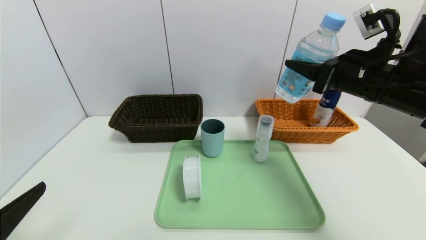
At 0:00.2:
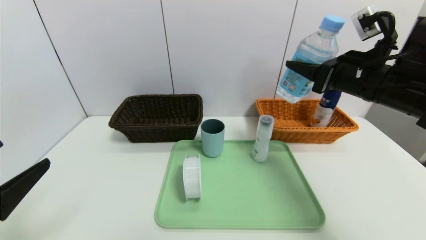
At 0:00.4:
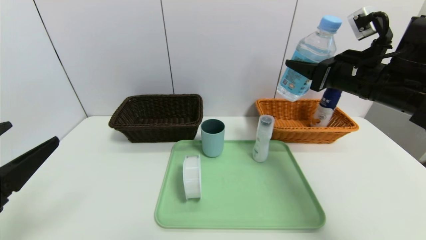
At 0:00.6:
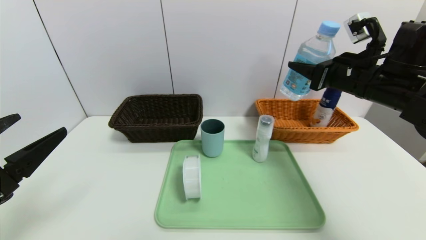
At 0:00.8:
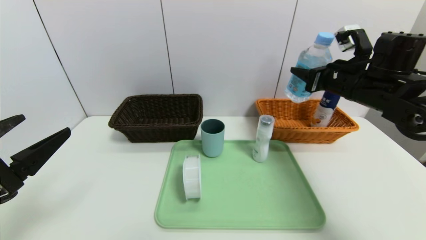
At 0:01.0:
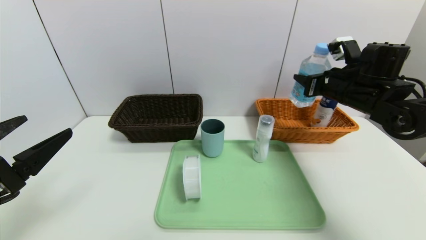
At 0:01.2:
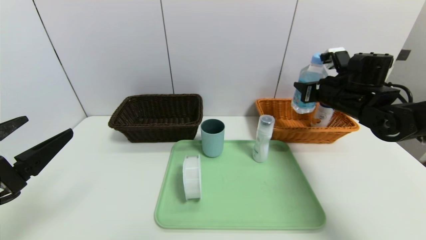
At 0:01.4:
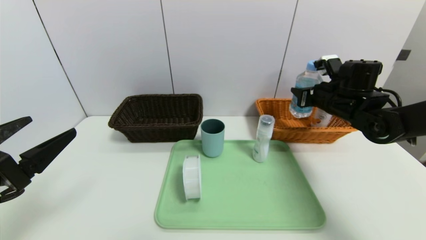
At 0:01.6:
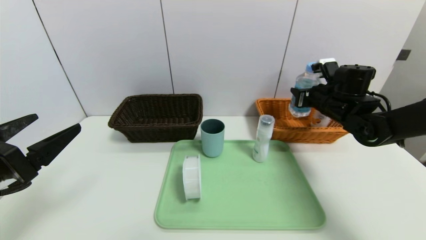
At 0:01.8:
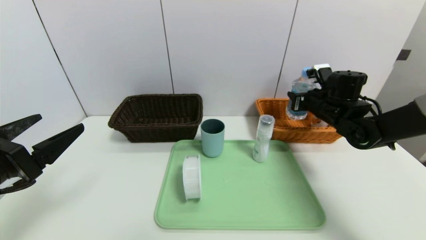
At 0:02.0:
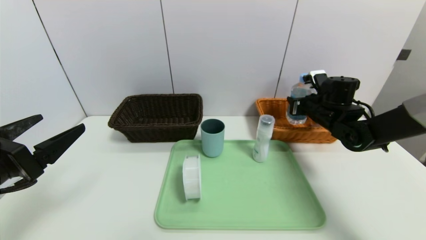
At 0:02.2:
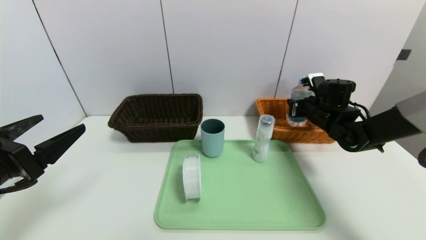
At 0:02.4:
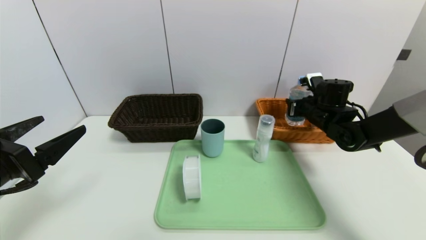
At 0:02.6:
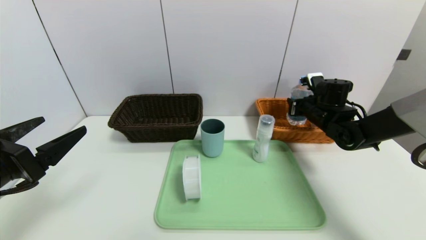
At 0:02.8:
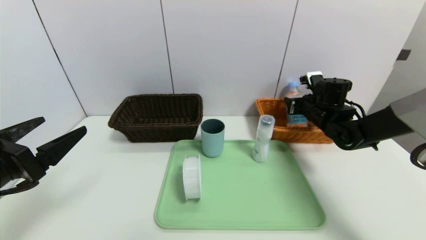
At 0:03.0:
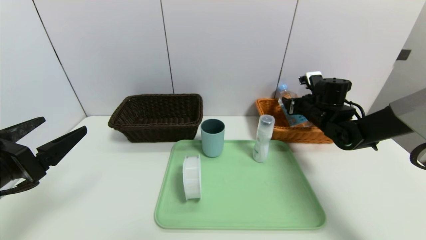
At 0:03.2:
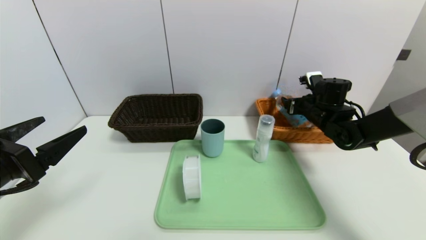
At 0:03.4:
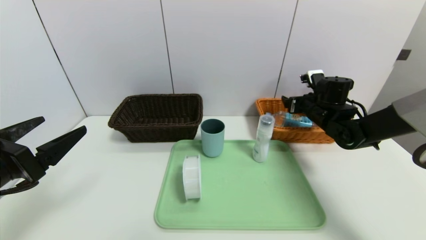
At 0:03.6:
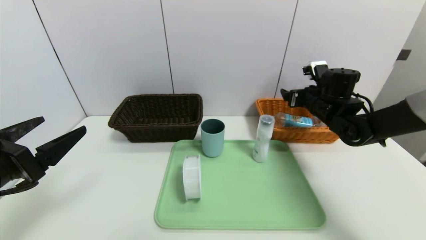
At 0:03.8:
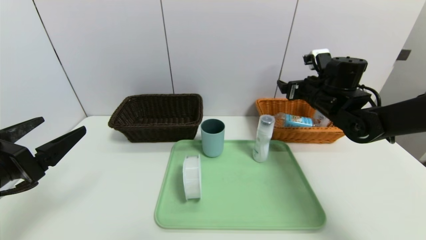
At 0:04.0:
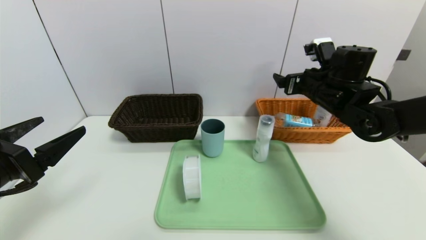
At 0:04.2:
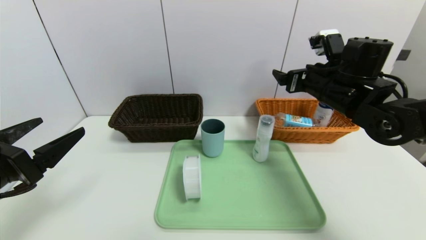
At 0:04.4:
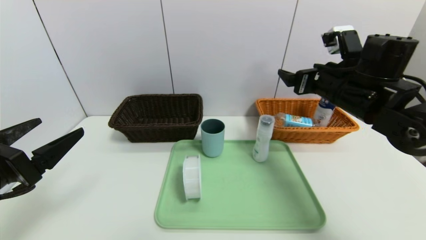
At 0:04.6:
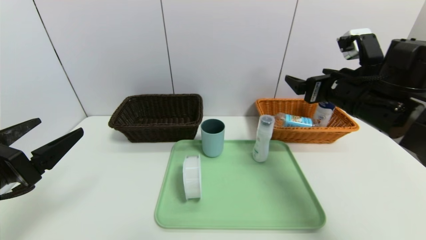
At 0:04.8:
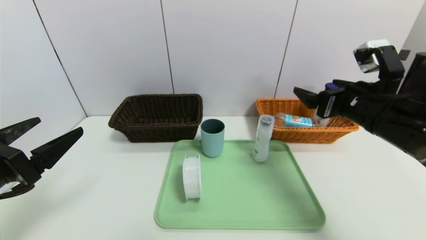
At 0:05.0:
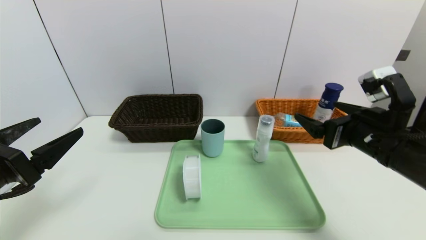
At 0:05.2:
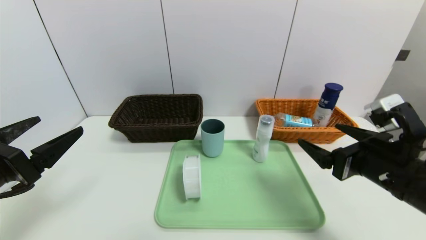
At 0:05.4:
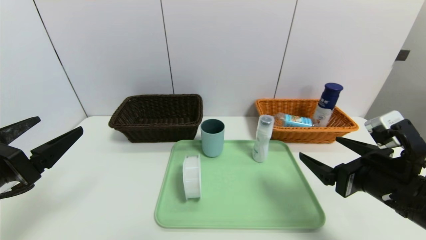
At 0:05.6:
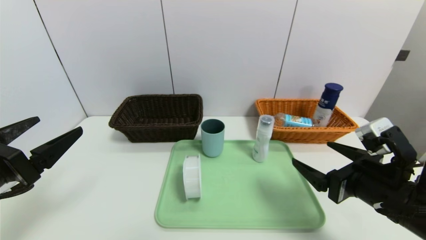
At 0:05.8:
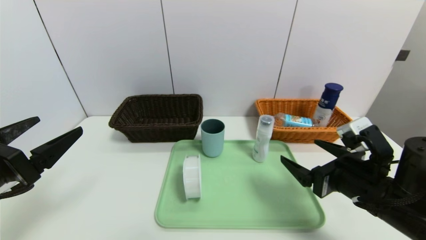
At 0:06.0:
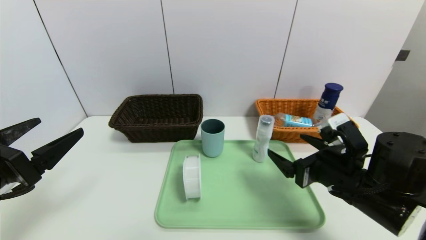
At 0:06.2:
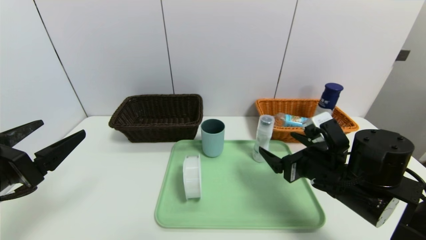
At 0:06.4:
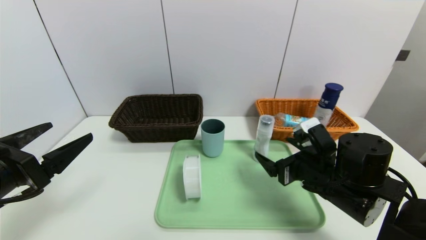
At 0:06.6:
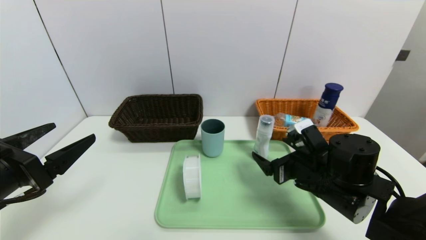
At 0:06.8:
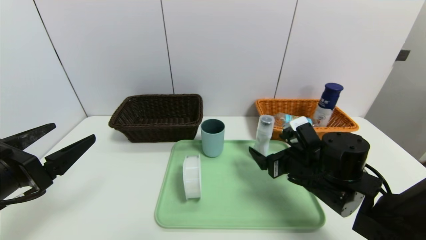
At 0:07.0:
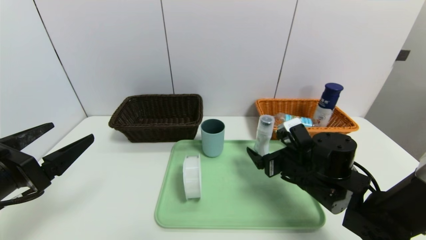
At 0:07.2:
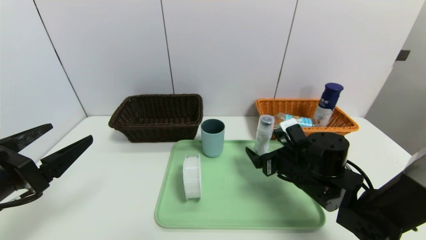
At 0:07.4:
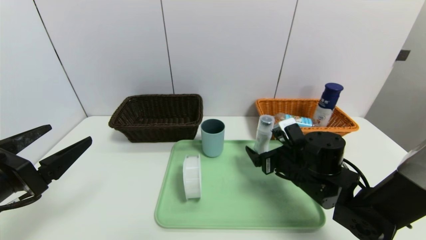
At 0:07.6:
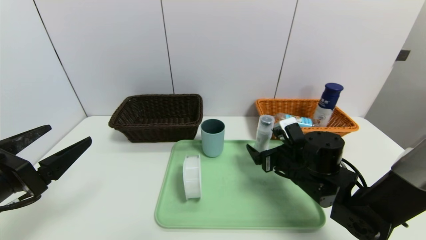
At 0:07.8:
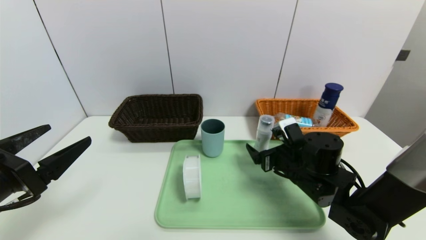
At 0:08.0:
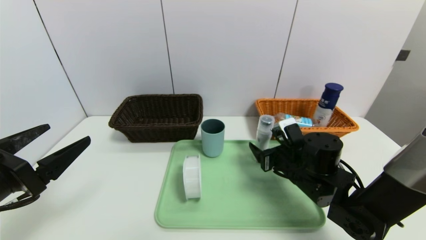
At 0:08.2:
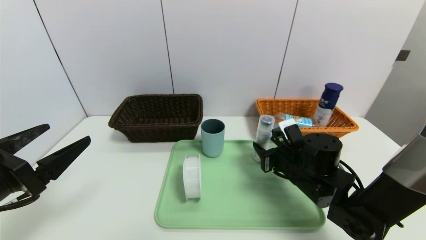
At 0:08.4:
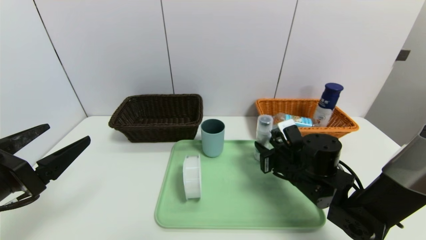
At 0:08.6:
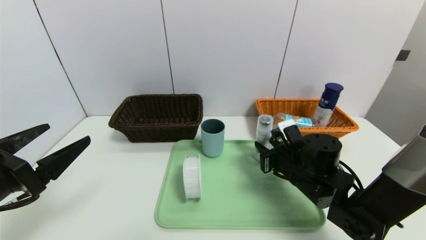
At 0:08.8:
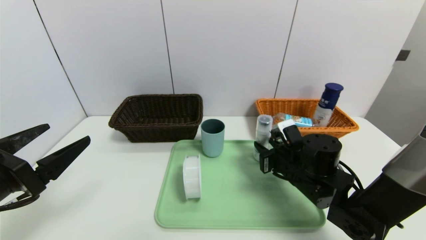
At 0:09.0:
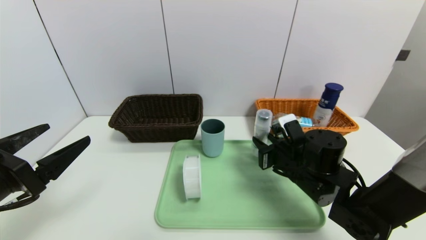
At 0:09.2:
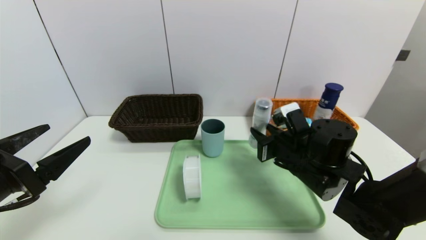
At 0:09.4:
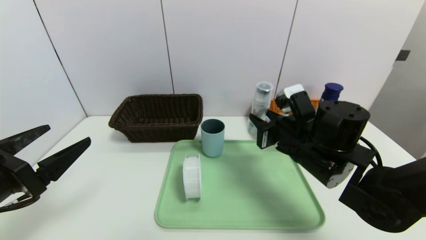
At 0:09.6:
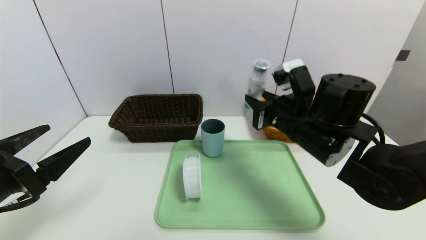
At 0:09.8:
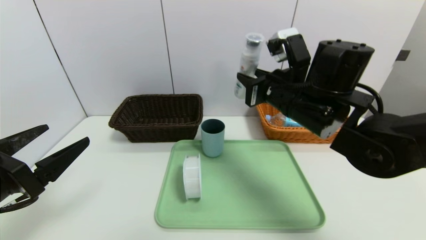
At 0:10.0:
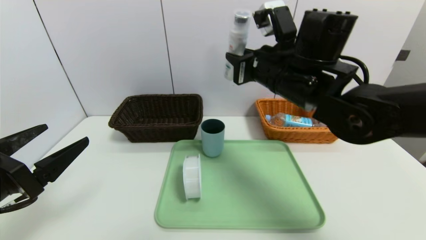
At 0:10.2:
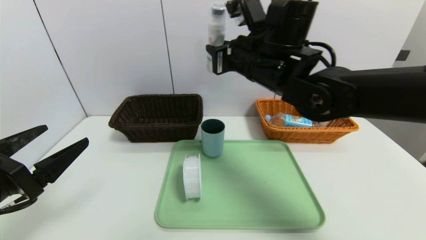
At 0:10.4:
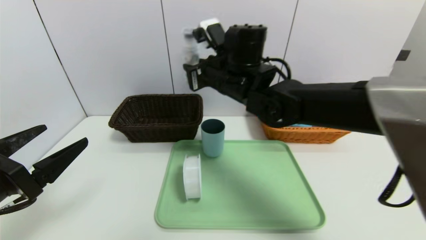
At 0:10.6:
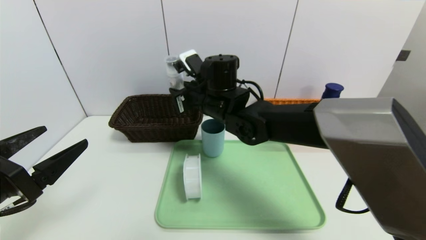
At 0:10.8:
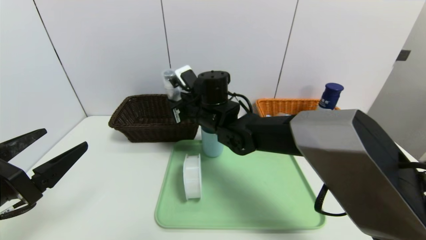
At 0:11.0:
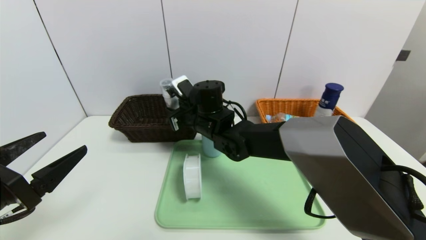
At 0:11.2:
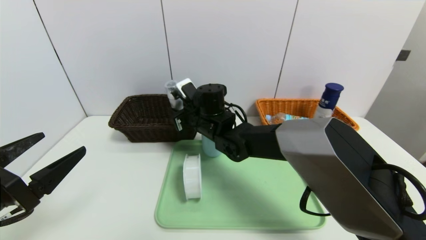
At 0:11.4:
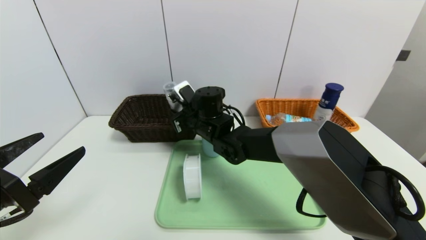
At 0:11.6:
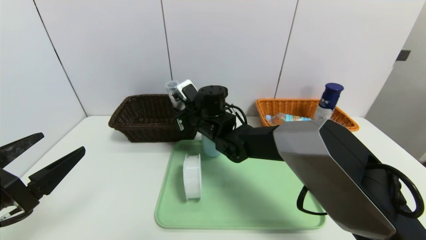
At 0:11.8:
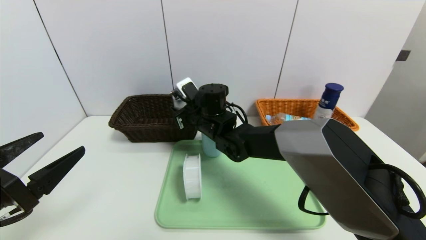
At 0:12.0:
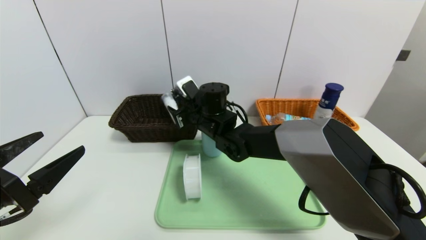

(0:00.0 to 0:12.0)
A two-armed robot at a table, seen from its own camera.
Task of the whole recording: place the food in the right basket with the right gripper, and place the non food items in the left basket with the left gripper.
Step, 0:00.0 - 0:03.6: Grasp the soda water and put it in the right basket.
0:00.0 - 0:01.6: The left gripper shifts roughly 10 cm forward; the right gripper is displaced forward and downward by about 15 cm.
0:01.6 - 0:03.0: The right gripper opens up.
0:03.0 - 0:04.4: The right gripper travels backward and upward by approximately 15 cm.
0:04.4 - 0:06.0: The right gripper shifts roughly 15 cm downward and backward.
0:06.0 - 0:07.6: The right gripper travels forward and downward by approximately 10 cm.
0:07.6 - 0:09.0: The right gripper closes up.
0:09.0 - 0:10.4: The right gripper is displaced upward, to the left and forward by roughly 25 cm.
0:10.4 - 0:12.0: The right gripper travels downward by approximately 10 cm, and opens up.

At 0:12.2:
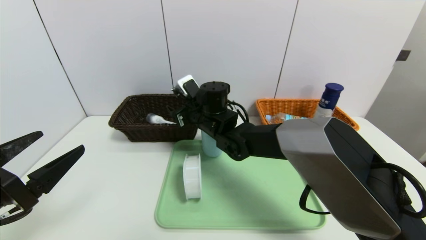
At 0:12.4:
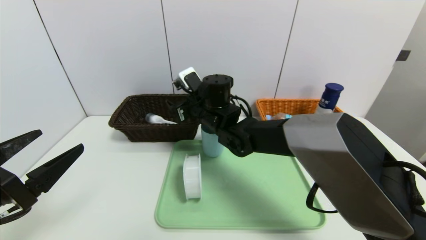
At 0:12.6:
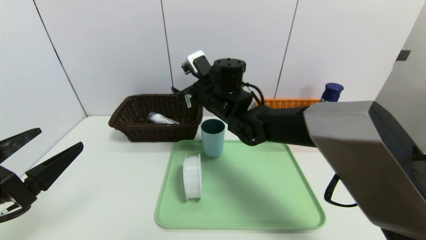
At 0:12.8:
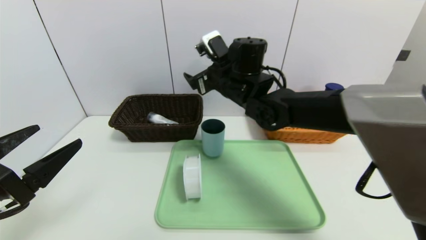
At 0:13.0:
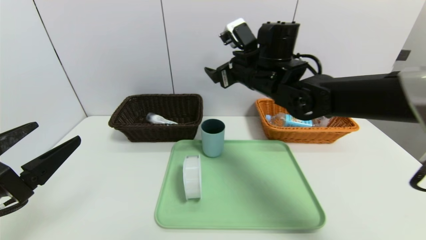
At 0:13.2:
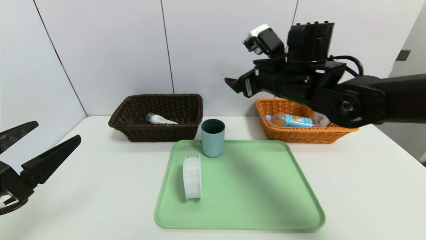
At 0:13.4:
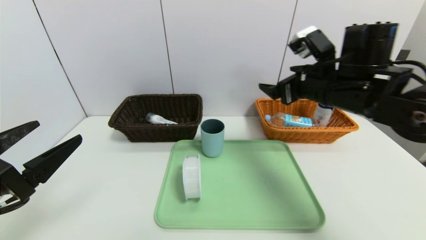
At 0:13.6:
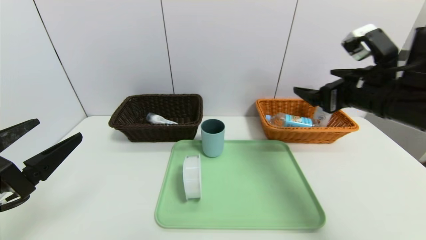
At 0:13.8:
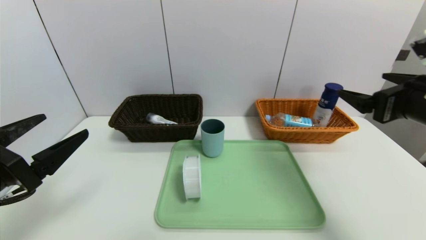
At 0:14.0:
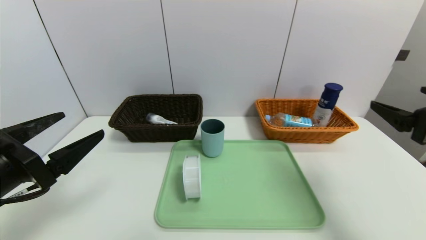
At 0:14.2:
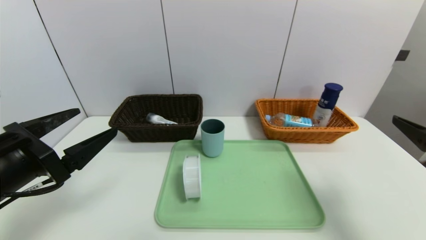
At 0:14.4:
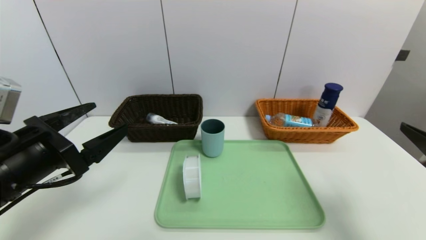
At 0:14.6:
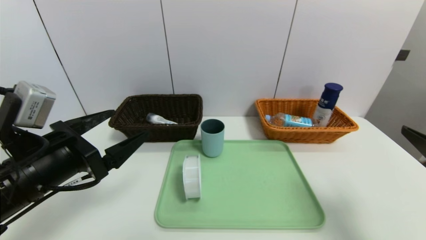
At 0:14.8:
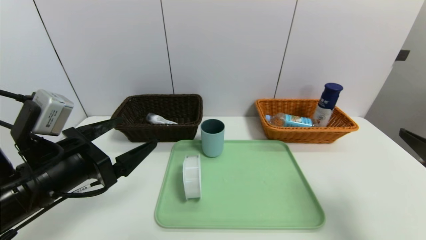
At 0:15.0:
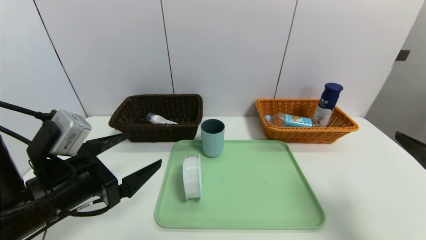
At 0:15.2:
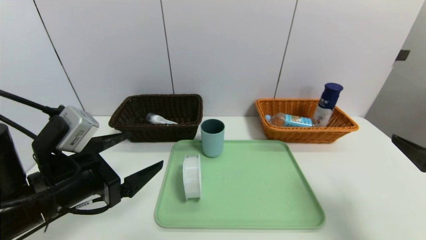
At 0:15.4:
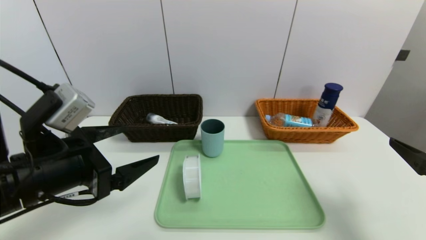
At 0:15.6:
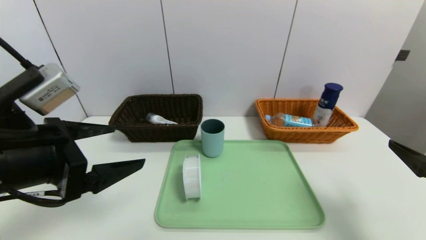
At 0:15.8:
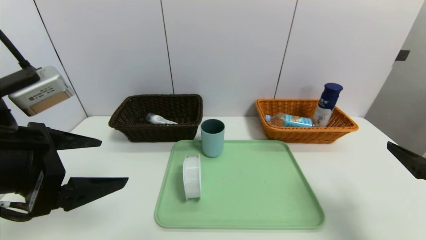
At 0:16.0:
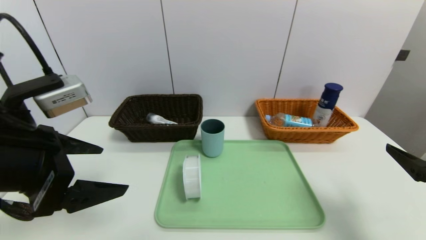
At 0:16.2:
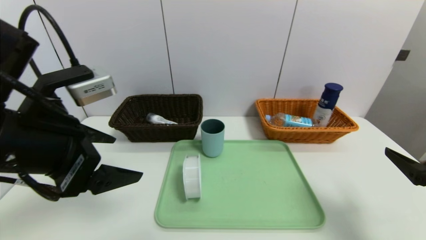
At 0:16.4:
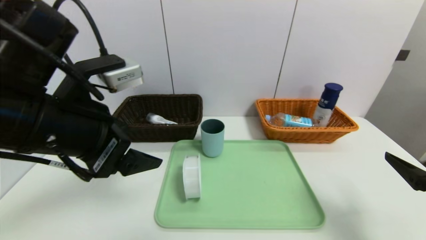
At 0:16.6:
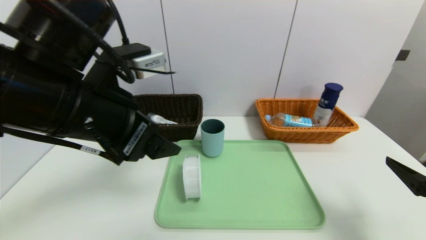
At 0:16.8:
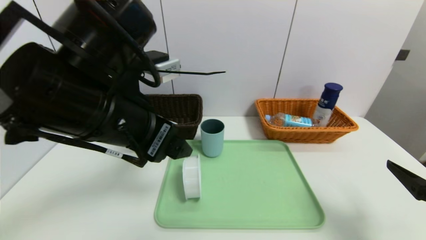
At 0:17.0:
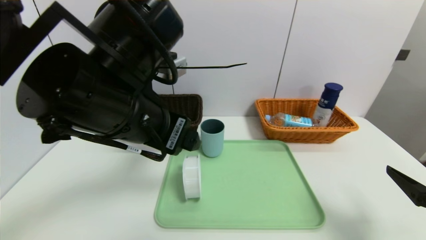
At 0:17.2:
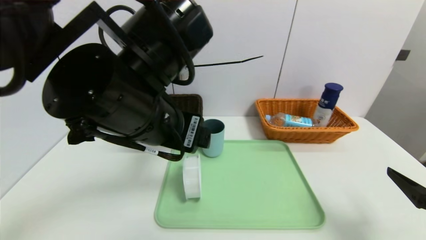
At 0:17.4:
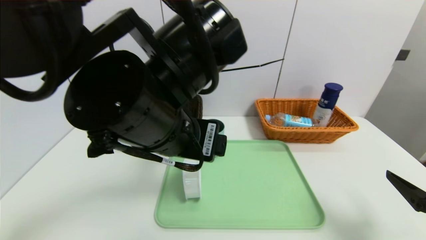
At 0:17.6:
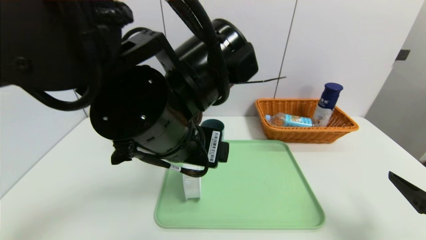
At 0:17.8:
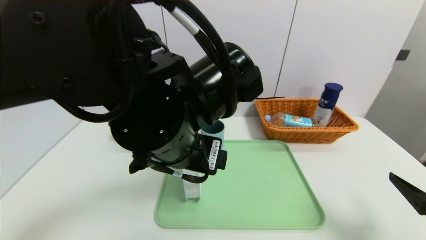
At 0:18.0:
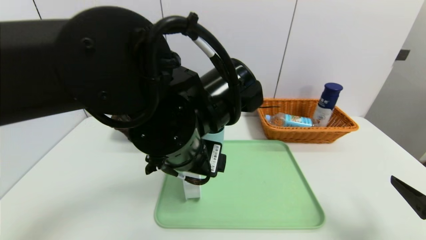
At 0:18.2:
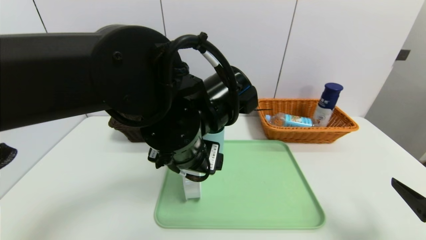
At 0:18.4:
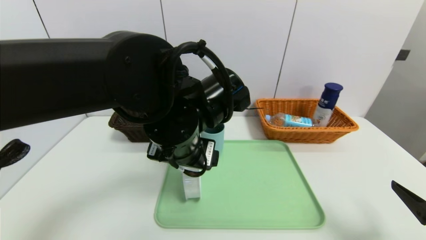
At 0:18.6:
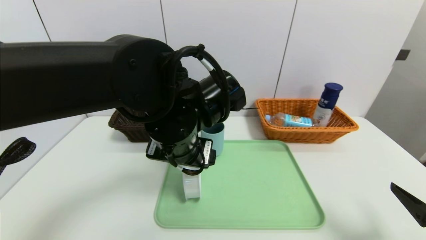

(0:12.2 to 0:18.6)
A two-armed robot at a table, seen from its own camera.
Task of the whole recording: place the food in the right basket with the right gripper, and place the non food items in the left basket with the left gripper.
0:12.2 - 0:13.8: The right gripper heads to the right and backward, covering about 35 cm.
0:13.8 - 0:15.4: The right gripper moves backward and downward, about 10 cm. The left gripper heads to the right, covering some 5 cm.
0:15.4 - 0:17.0: The left gripper is displaced to the right and upward by approximately 15 cm.
0:17.0 - 0:18.6: The left gripper heads downward and to the right, covering approximately 10 cm.
